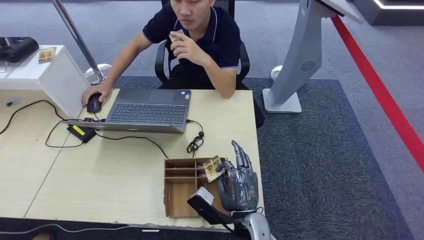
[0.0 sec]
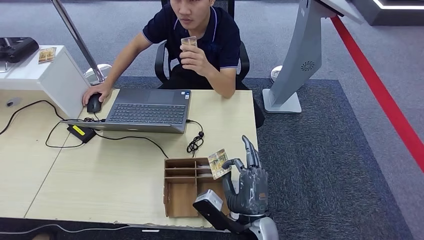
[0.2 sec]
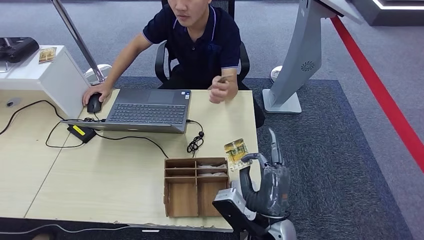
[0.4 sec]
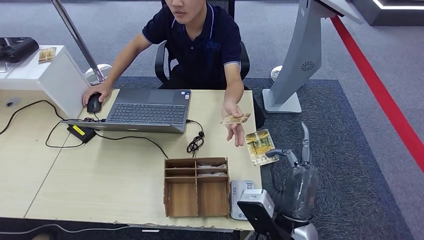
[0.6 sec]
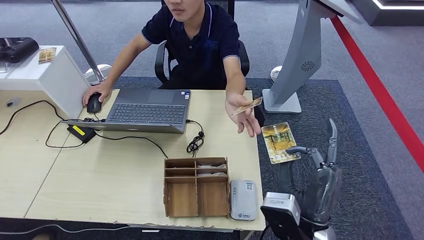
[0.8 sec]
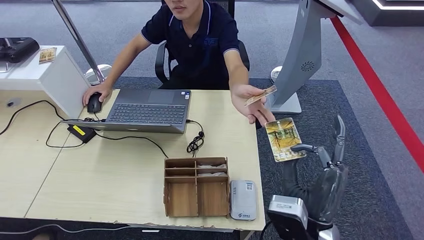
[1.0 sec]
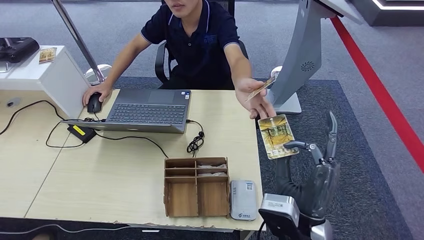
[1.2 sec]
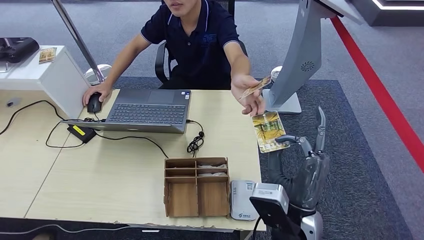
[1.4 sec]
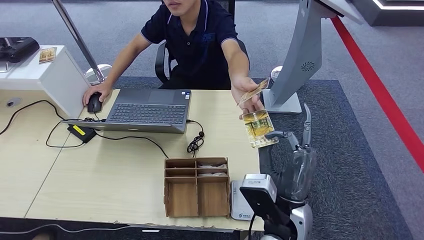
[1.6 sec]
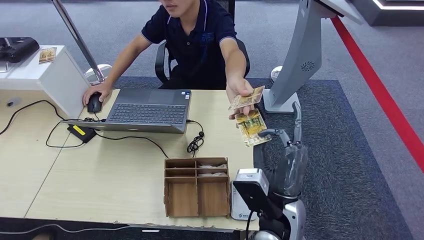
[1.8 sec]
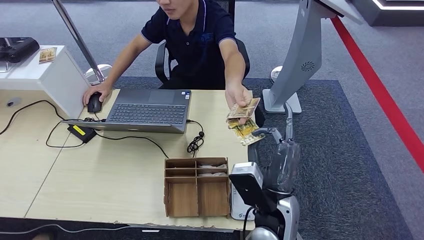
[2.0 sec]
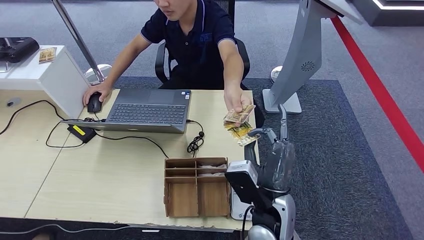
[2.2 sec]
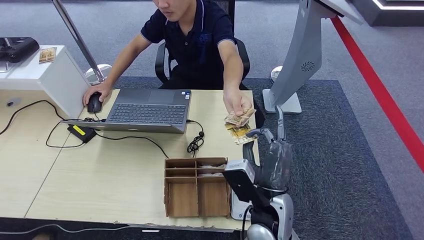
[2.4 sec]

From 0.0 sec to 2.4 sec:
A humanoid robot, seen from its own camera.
Step, from 0.0 sec to 2.4 sec: Hand the room key to the person.
From 0.0 sec to 1.2 sec: The right hand shifts about 15 cm upward and to the right.
From 1.2 sec to 2.4 sec: The right hand changes place by roughly 5 cm.
